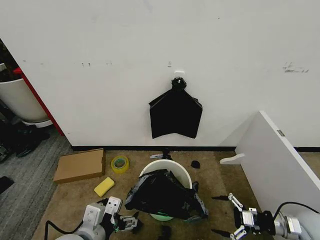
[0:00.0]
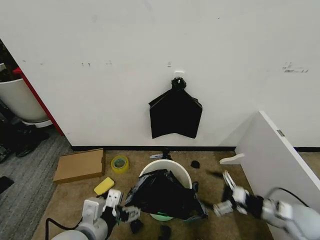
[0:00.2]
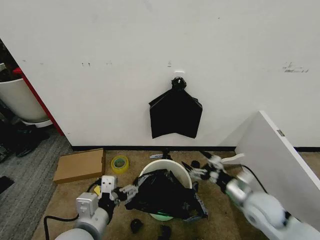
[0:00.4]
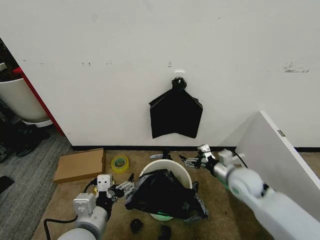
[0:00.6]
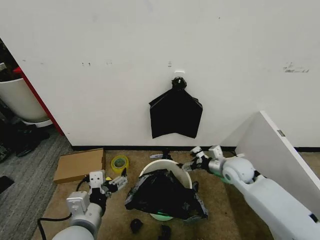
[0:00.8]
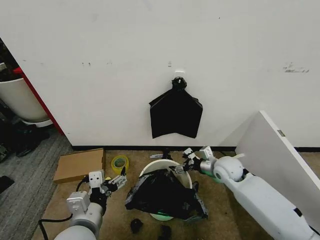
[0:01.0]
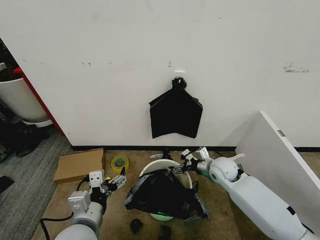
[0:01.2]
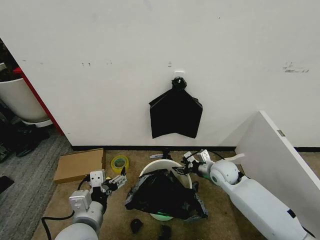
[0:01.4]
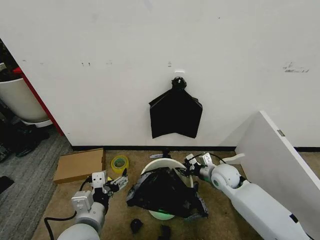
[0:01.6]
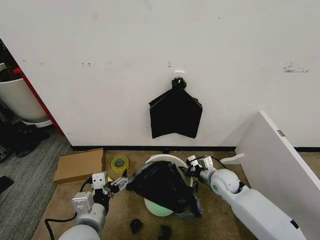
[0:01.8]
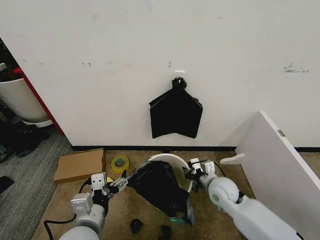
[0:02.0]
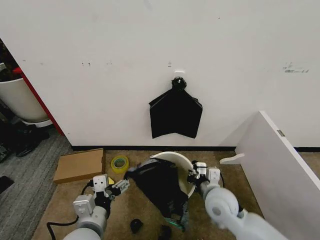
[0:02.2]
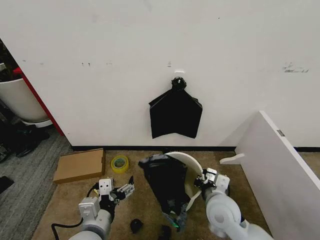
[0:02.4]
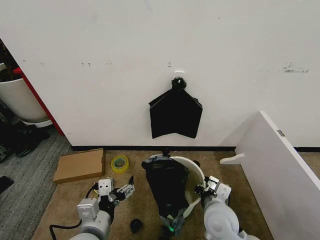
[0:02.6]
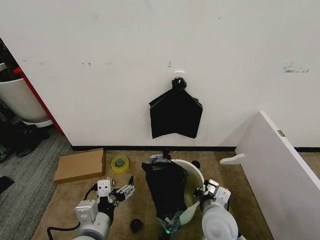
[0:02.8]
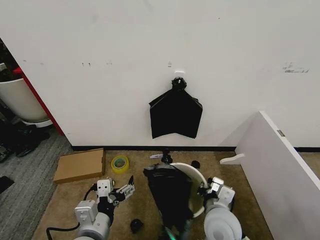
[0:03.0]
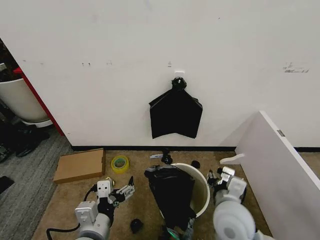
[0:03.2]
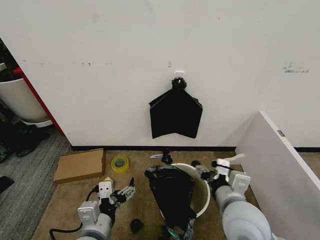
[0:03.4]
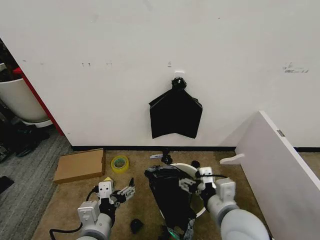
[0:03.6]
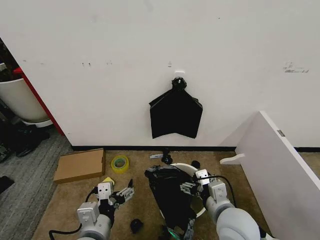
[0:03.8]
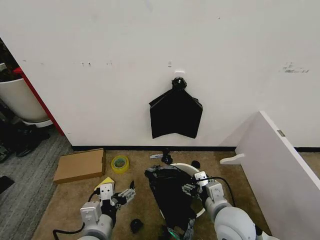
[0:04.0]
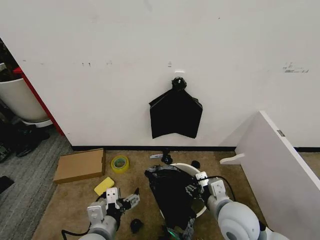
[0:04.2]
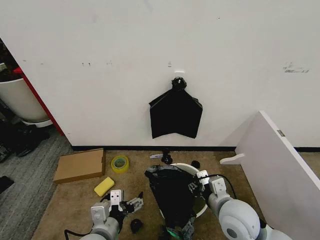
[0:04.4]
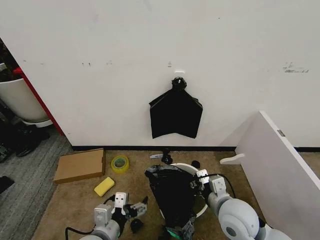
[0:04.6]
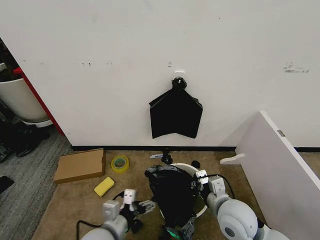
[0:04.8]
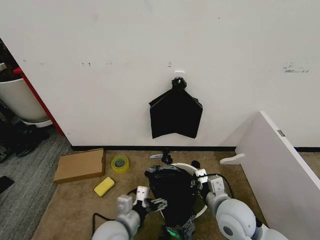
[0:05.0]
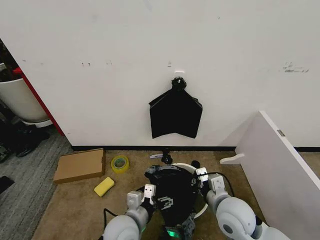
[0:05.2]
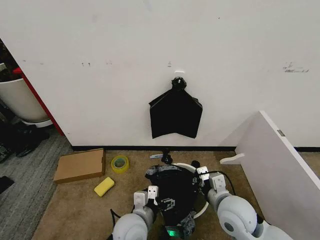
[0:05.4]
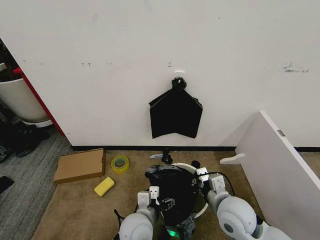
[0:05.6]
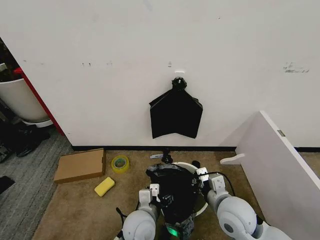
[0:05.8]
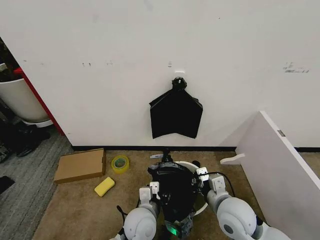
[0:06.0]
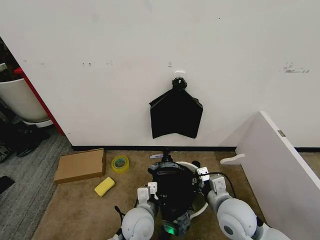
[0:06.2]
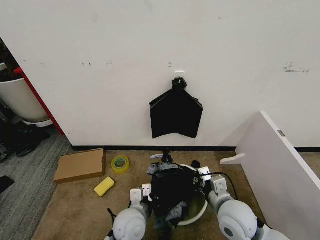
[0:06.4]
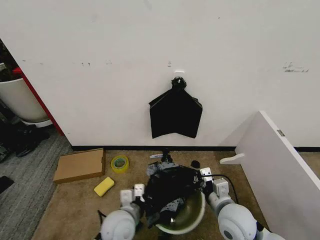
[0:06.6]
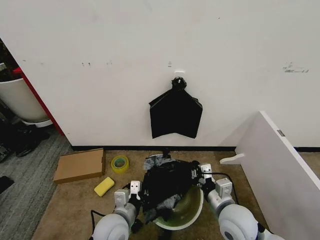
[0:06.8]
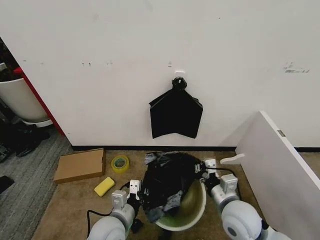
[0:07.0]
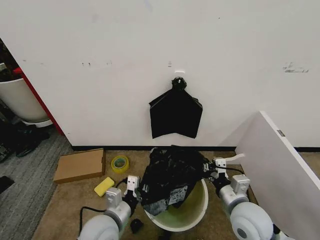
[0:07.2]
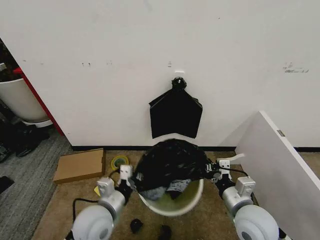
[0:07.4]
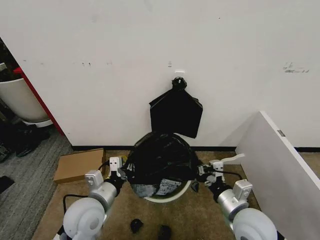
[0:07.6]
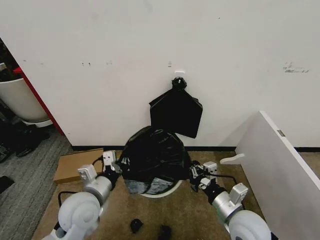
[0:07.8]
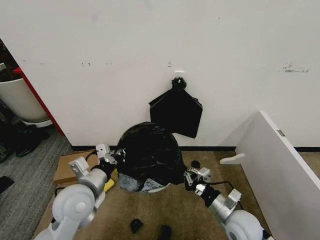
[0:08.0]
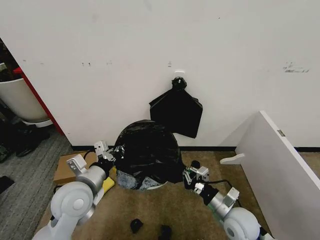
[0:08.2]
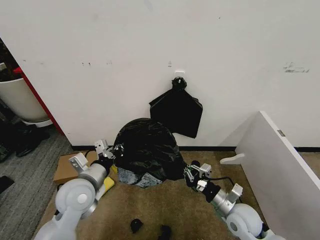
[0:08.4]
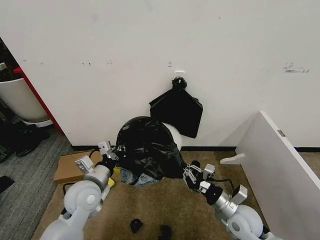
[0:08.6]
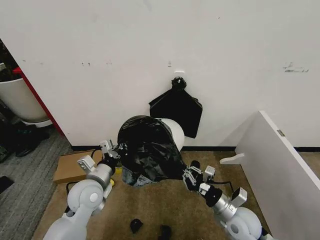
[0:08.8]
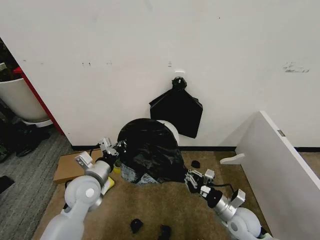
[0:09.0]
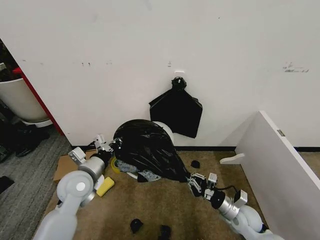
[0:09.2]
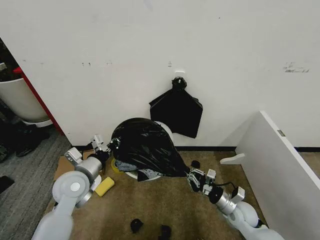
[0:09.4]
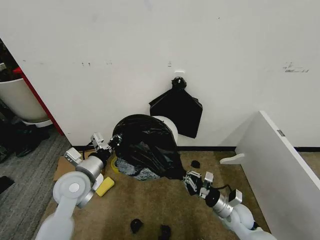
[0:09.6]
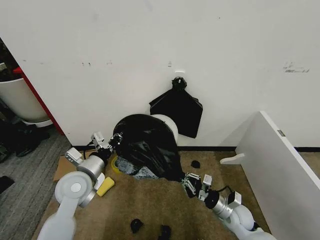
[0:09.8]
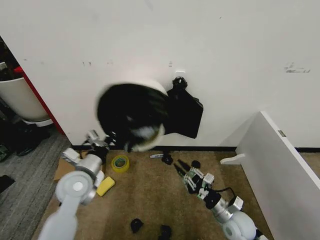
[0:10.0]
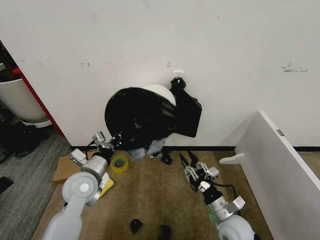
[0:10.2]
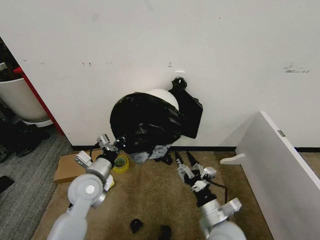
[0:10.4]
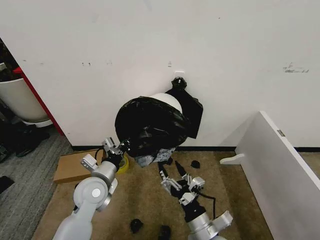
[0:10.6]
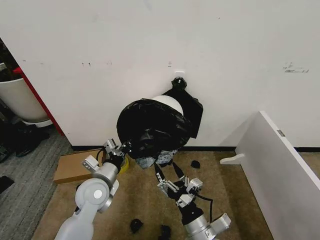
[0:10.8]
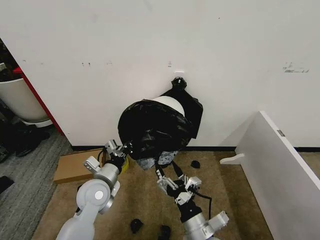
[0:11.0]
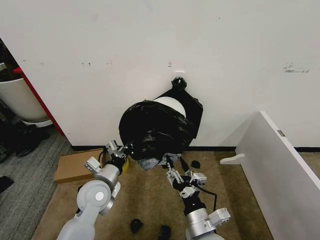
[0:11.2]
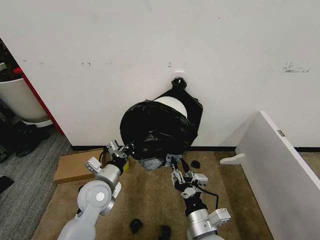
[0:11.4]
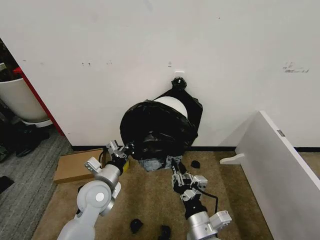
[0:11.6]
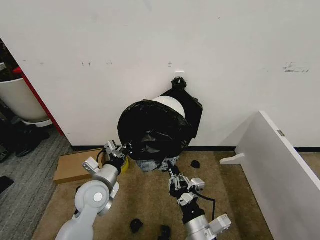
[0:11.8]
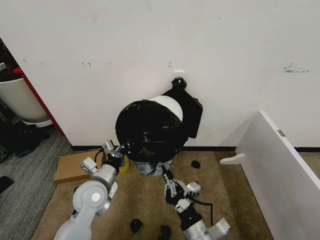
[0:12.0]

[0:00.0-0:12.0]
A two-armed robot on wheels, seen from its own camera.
Task of the whole recording: Place the garbage bag over the trash bin.
0:00.0 to 0:01.6: The right gripper is displaced to the left and forward by some 25 cm, and closes its fingers.
0:01.6 to 0:03.0: The right gripper heads backward and to the left, covering some 20 cm.
0:03.0 to 0:04.4: The right gripper moves some 10 cm upward and comes back, and opens, then closes once more.
0:04.4 to 0:06.0: The right gripper closes up; the left gripper moves to the right, forward and downward, approximately 15 cm, and closes.
0:06.0 to 0:07.6: The left gripper travels to the left and upward by some 15 cm, and closes up.
0:07.6 to 0:09.0: The right gripper is displaced downward by about 15 cm. The left gripper heads forward, covering roughly 10 cm.
0:09.0 to 0:10.4: The right gripper travels to the left, upward and backward by some 15 cm, and opens up.
0:10.4 to 0:12.0: The right gripper heads backward, covering roughly 5 cm, and closes.

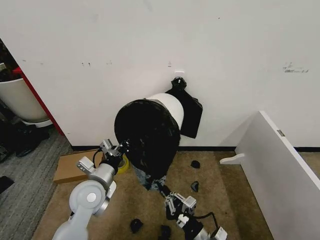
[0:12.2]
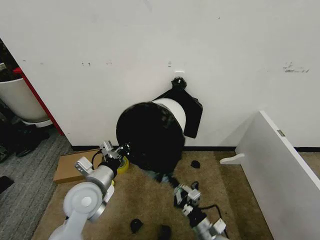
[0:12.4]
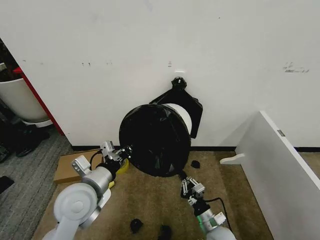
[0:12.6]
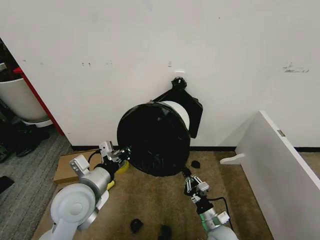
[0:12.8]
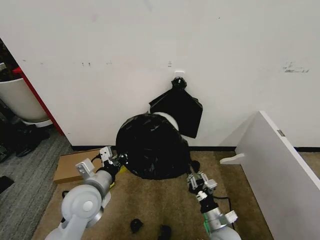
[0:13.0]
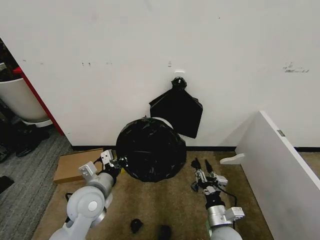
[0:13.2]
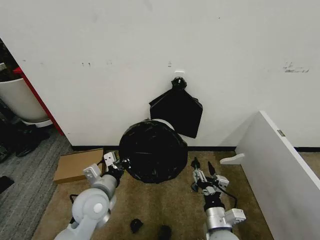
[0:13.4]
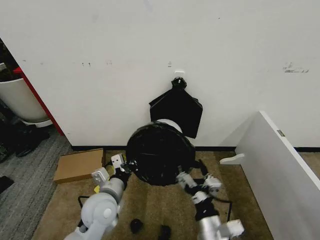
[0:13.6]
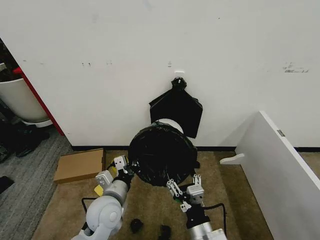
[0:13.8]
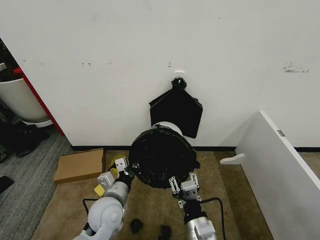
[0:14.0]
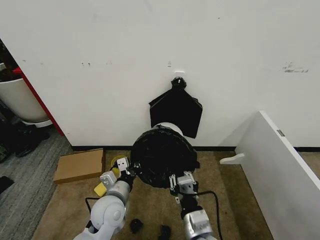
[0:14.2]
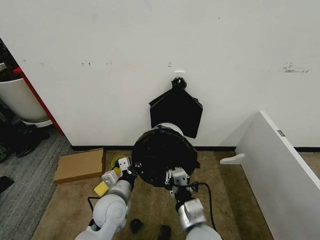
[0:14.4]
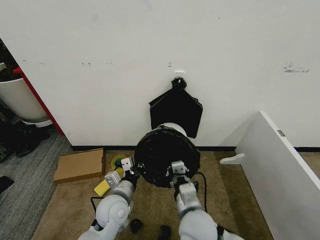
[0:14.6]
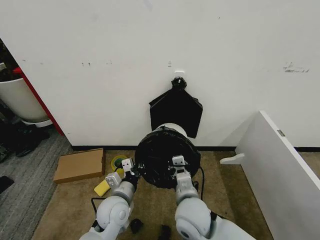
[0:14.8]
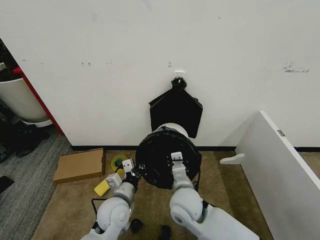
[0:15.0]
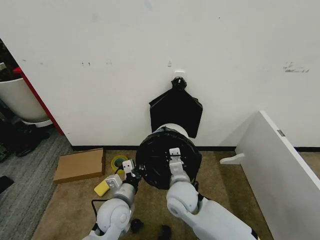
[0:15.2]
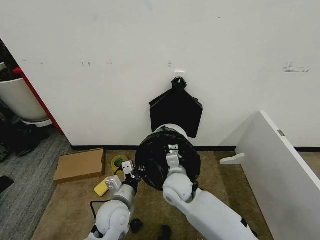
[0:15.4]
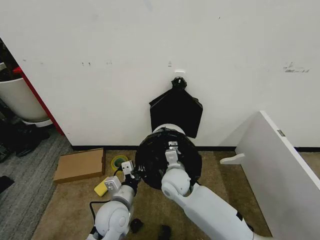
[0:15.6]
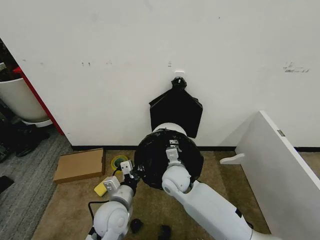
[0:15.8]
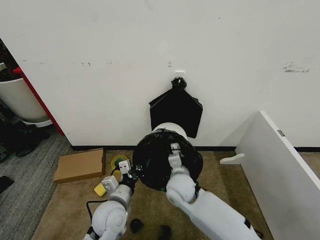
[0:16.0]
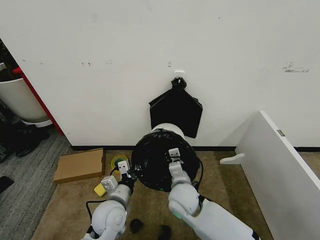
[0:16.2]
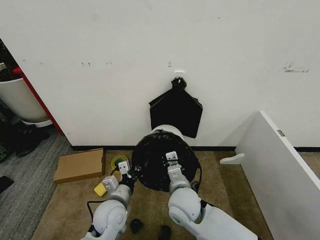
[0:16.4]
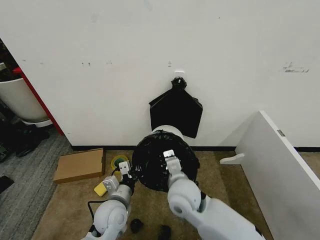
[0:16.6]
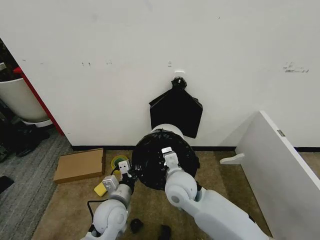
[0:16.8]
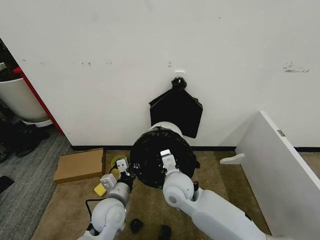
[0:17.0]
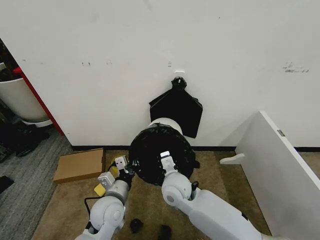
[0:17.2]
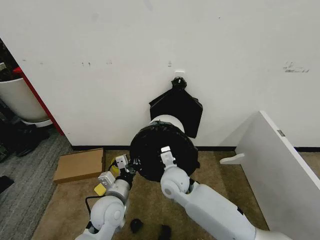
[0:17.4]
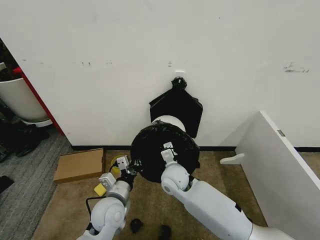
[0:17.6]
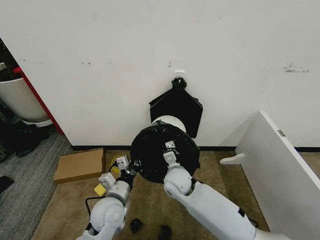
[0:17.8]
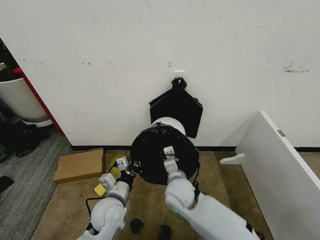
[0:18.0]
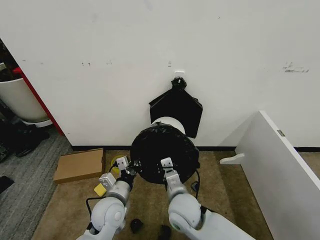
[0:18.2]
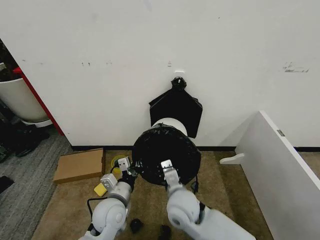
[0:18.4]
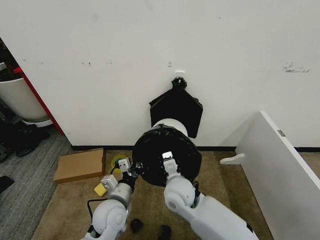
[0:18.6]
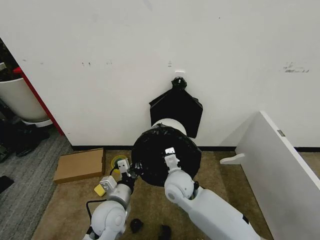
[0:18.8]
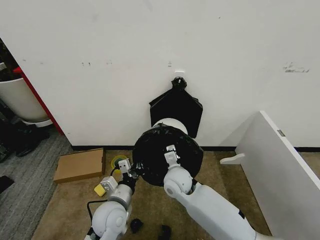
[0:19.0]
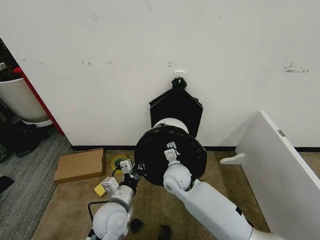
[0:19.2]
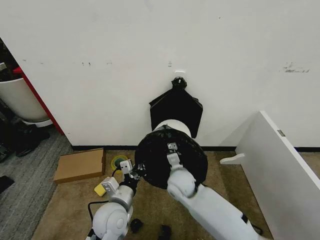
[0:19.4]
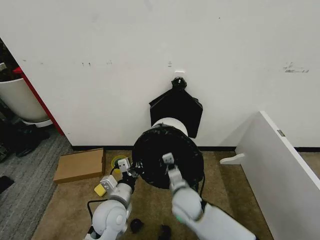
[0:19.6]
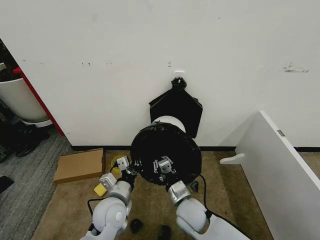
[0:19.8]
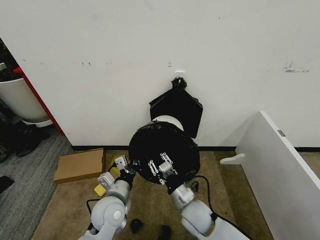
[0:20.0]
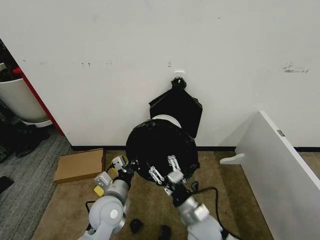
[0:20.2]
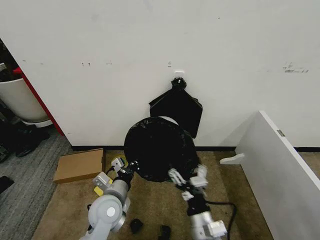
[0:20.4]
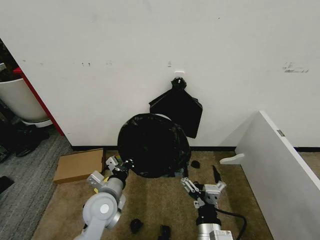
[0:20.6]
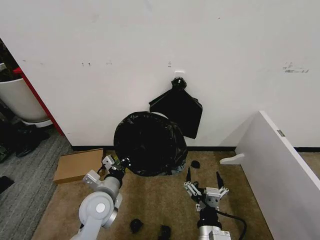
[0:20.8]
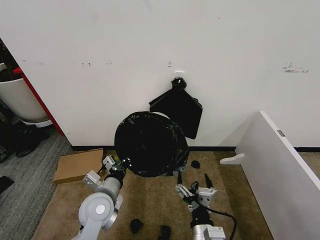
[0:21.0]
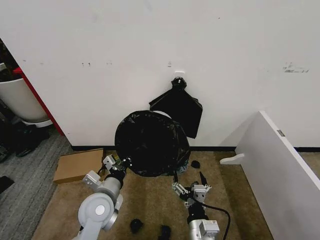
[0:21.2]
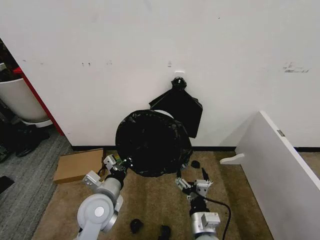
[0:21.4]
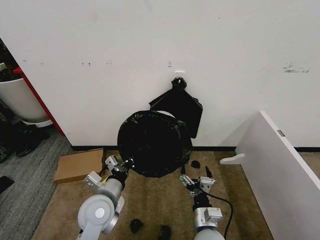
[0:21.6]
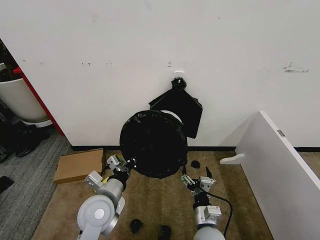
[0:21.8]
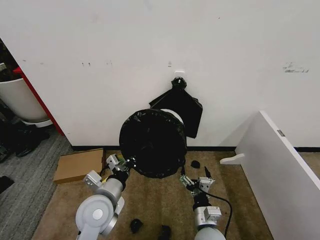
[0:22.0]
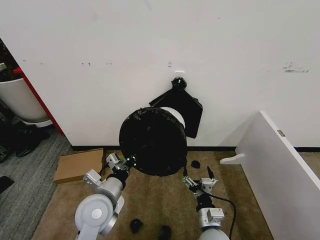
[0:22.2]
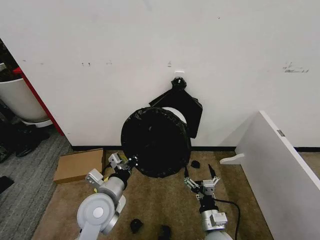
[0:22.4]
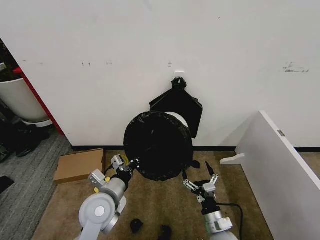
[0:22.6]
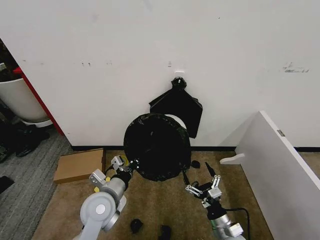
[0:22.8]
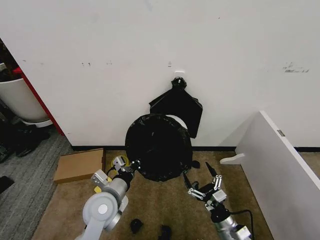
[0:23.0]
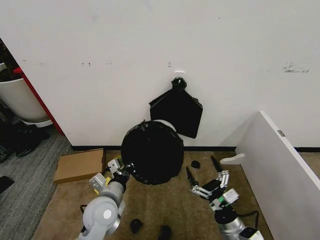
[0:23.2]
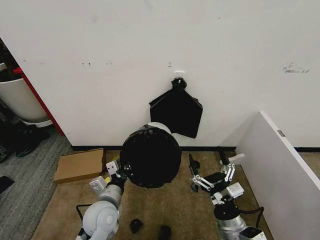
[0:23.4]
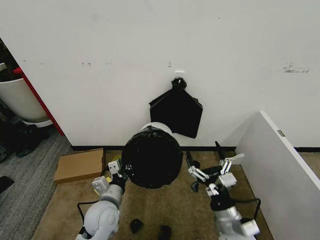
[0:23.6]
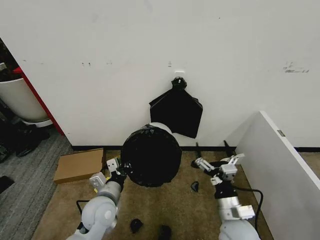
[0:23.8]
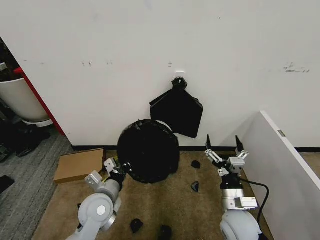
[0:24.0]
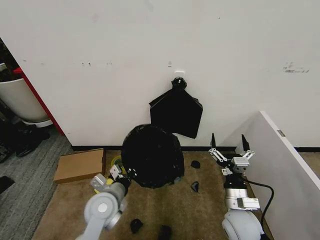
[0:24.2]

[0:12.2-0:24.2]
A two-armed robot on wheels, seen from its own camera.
Task of the whole recording: Place the garbage bag over the trash bin.
0:12.2 to 0:13.8: The left gripper moves approximately 5 cm upward and comes back; the right gripper moves some 15 cm downward and comes back, and opens its fingers.
0:13.8 to 0:15.2: The right gripper moves forward, about 15 cm, and closes up.
0:15.2 to 0:16.6: The right gripper travels forward and back again, about 5 cm each way.
0:16.6 to 0:18.2: The right gripper moves approximately 10 cm forward and comes back.
0:18.2 to 0:19.8: The right gripper goes roughly 5 cm downward, and goes forward and returns, approximately 10 cm each way.
0:19.8 to 0:21.2: The right gripper shifts roughly 15 cm backward, and opens up.
0:21.2 to 0:22.6: The right gripper moves to the right and downward, about 10 cm.
0:22.6 to 0:24.2: The right gripper goes some 10 cm upward.
